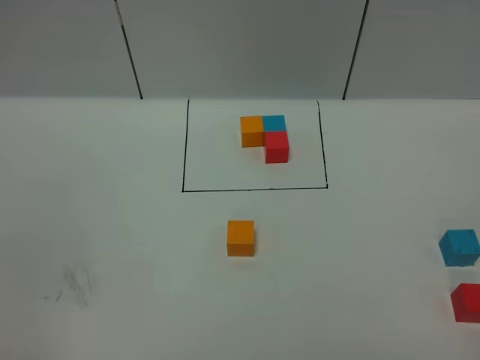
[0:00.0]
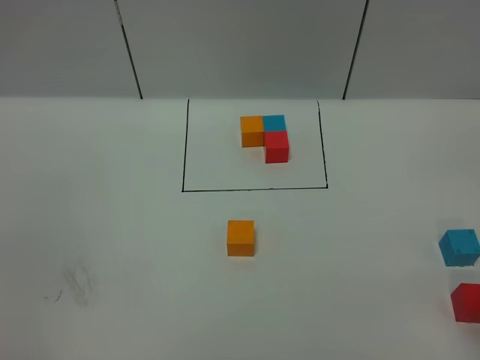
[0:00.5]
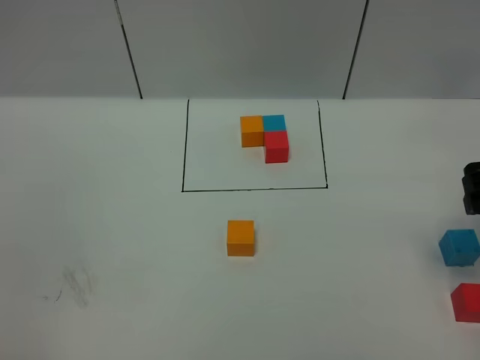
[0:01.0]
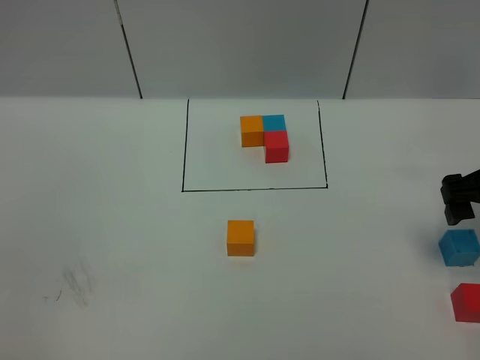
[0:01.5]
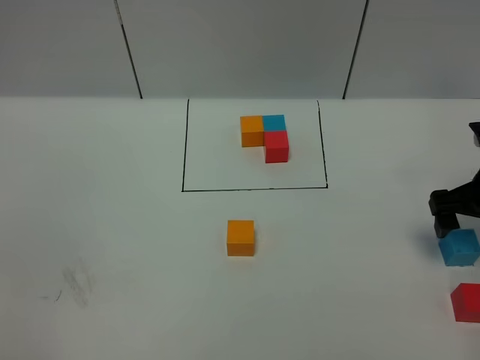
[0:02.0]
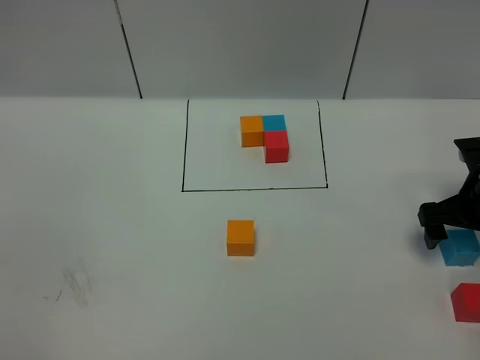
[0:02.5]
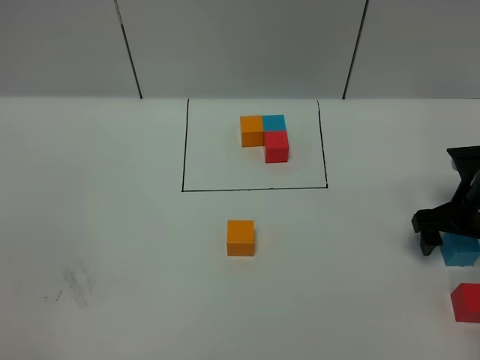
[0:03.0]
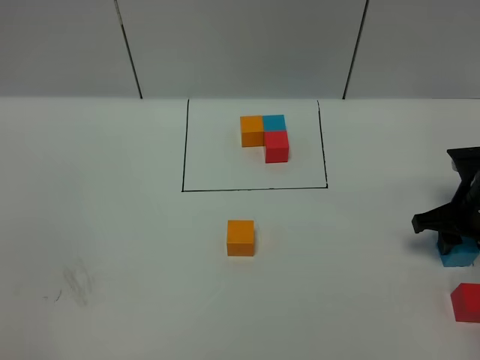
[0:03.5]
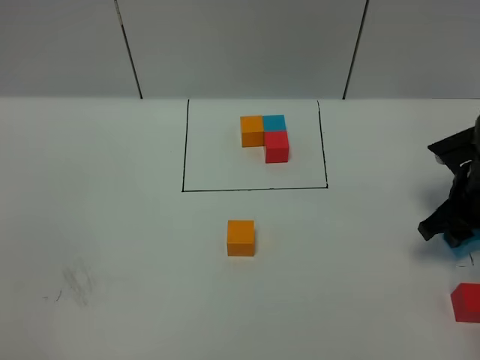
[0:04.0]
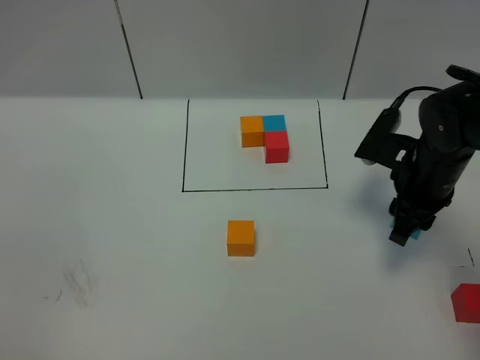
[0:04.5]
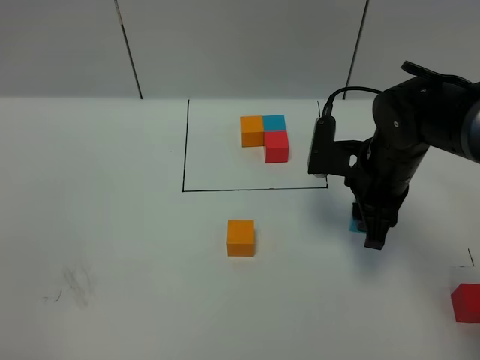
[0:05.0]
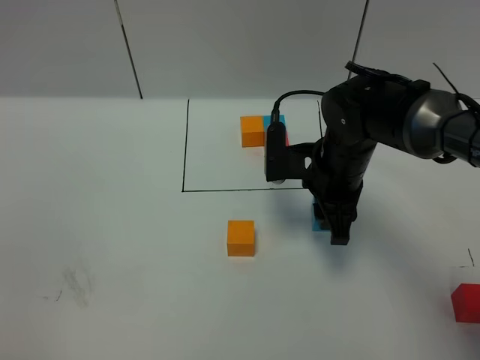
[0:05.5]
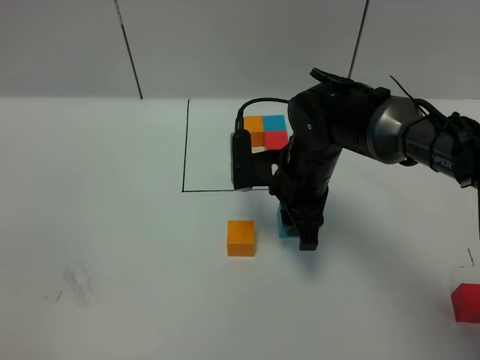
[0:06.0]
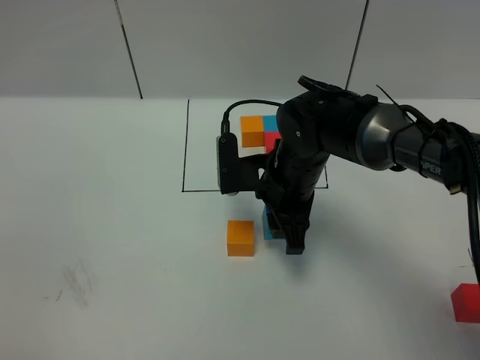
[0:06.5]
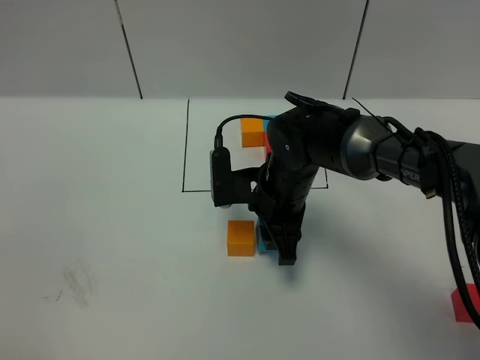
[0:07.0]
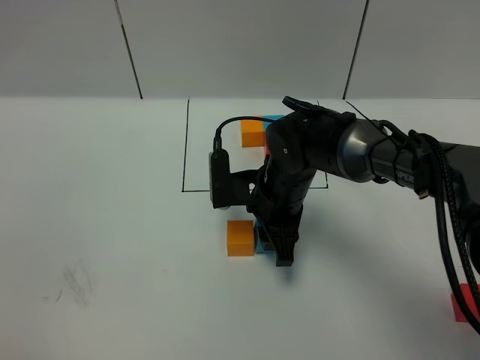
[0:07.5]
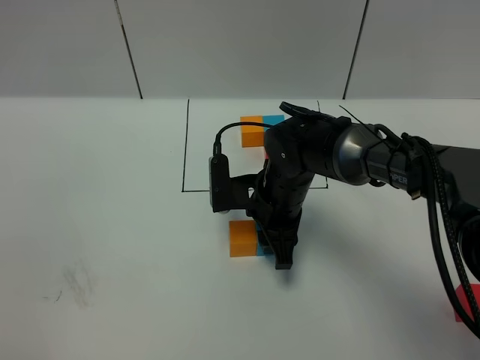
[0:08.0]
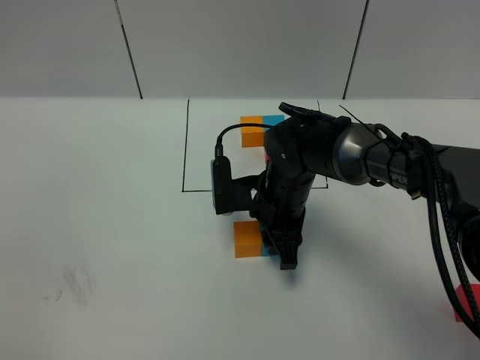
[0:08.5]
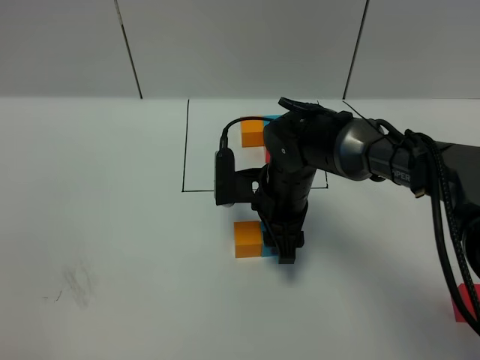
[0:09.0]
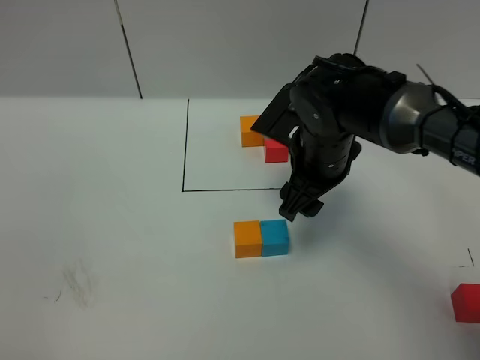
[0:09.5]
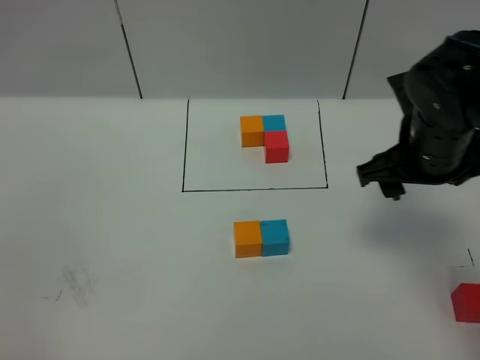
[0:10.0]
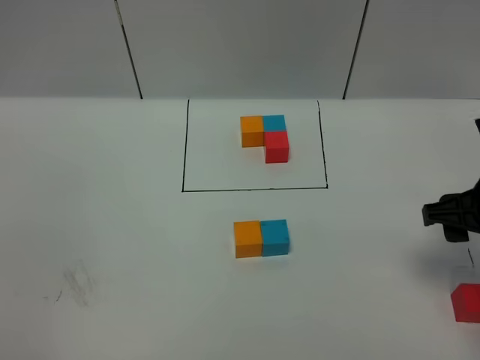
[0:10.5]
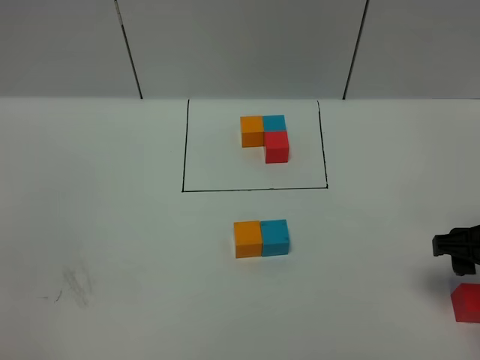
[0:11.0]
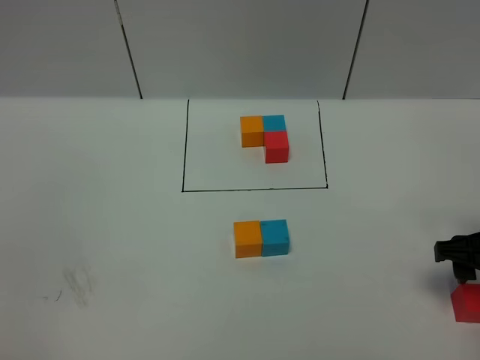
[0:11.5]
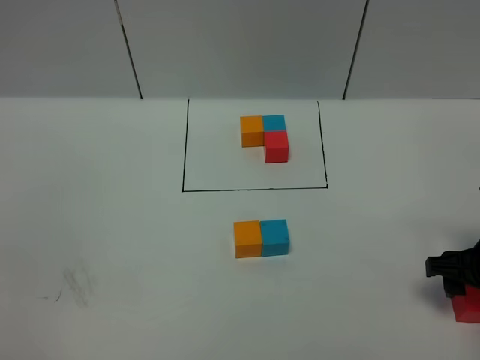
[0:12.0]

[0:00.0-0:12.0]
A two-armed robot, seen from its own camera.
Task of the whole recording: According to the building block template in front, assemble the scattered blocks together.
Step, 0:00.0 to 0:08.5: Put the blue cube on the right of the orange cube.
0:00.0 to 0:02.0: The right gripper shifts roughly 30 cm forward.
0:02.0 to 0:04.0: The right gripper closes up.
0:04.0 to 0:06.0: The right gripper heads to the left, covering some 20 cm.
0:06.0 to 0:08.0: The right gripper moves roughly 5 cm.
0:08.0 to 0:10.0: The right gripper shifts roughly 20 cm to the right and upward, and opens.
0:10.0 to 0:12.0: The right gripper shifts some 15 cm downward, to the right and backward.

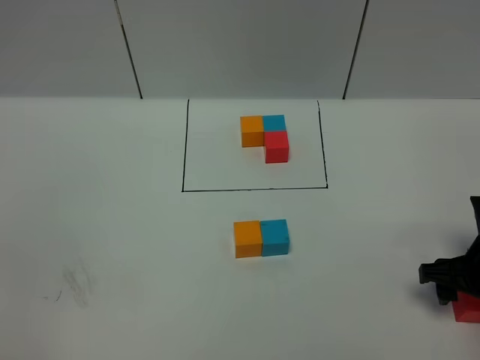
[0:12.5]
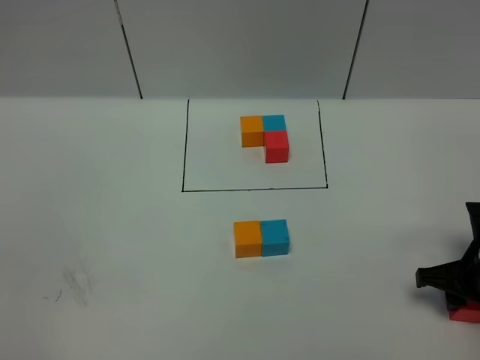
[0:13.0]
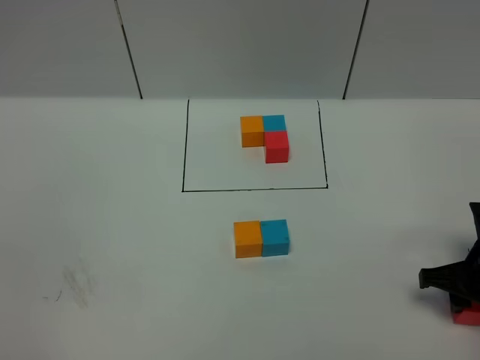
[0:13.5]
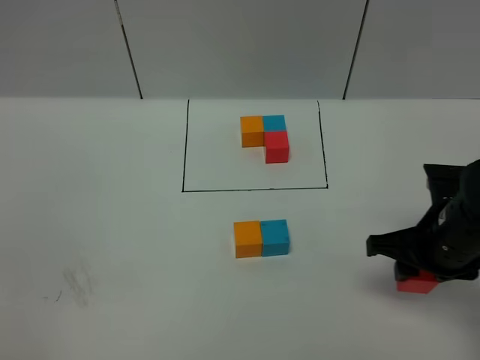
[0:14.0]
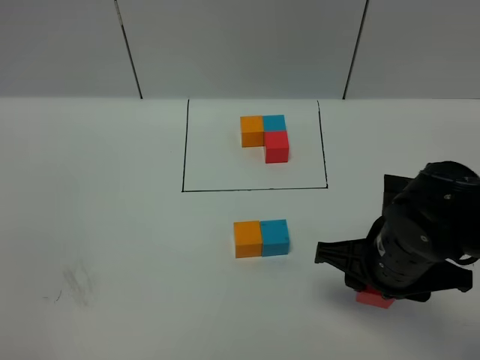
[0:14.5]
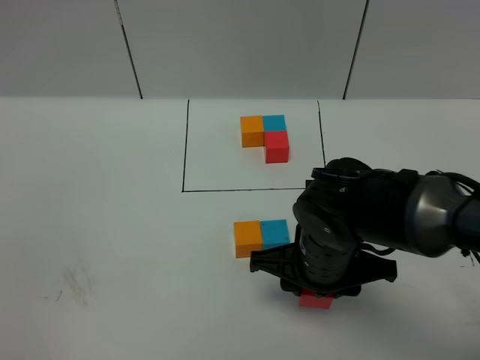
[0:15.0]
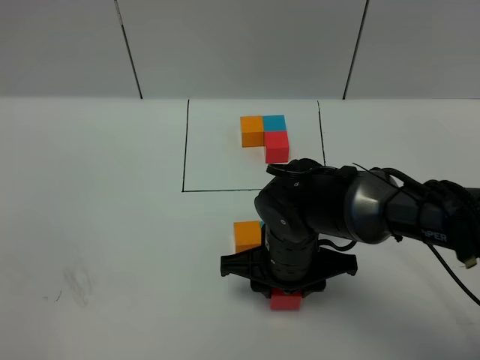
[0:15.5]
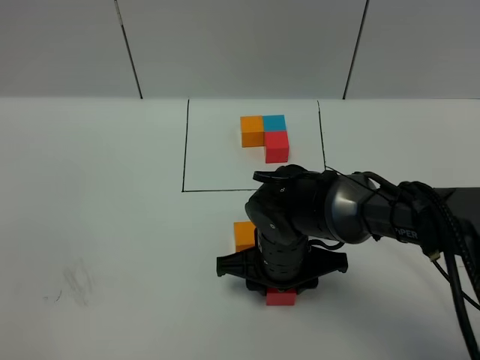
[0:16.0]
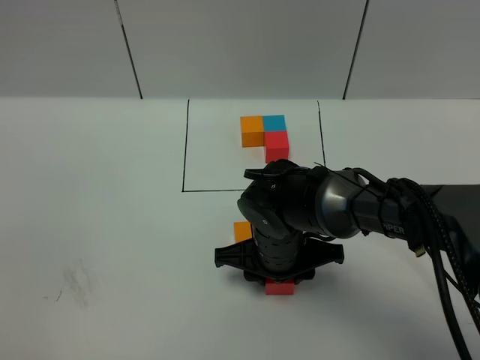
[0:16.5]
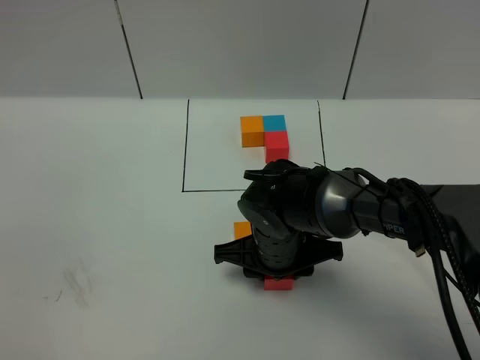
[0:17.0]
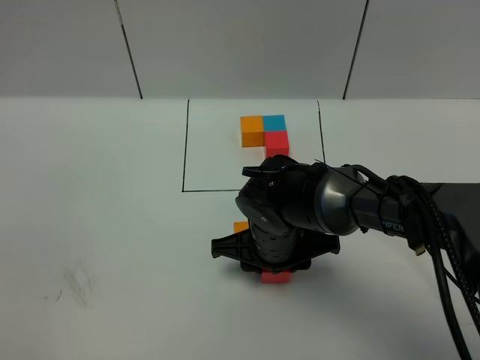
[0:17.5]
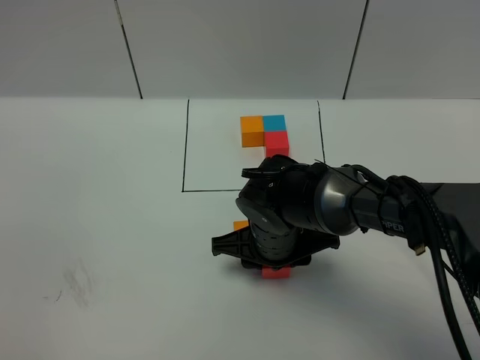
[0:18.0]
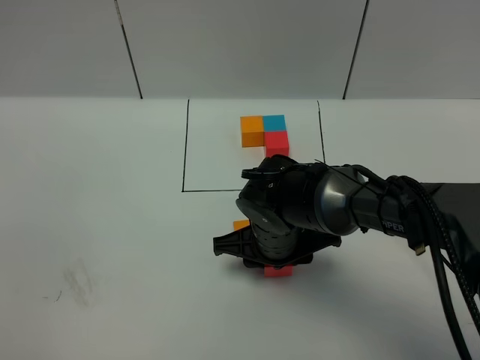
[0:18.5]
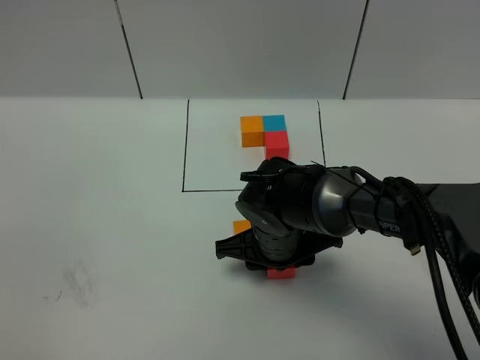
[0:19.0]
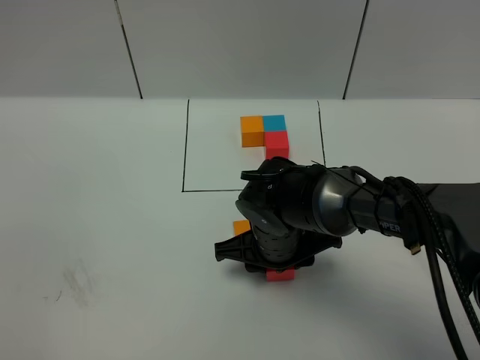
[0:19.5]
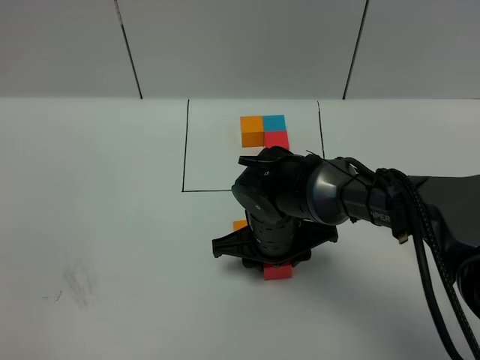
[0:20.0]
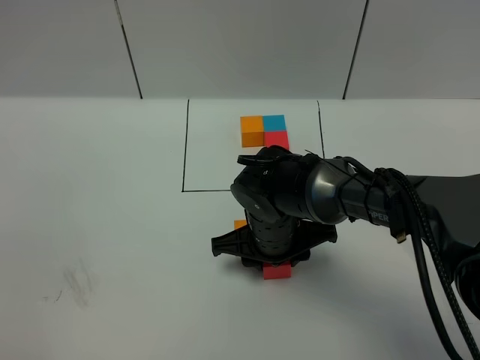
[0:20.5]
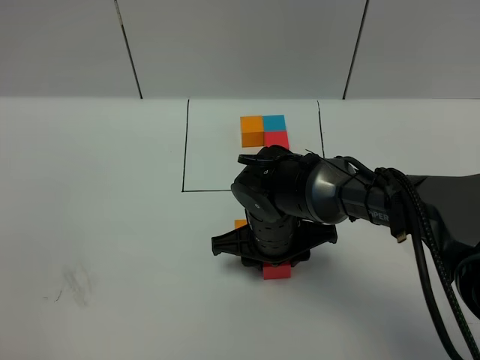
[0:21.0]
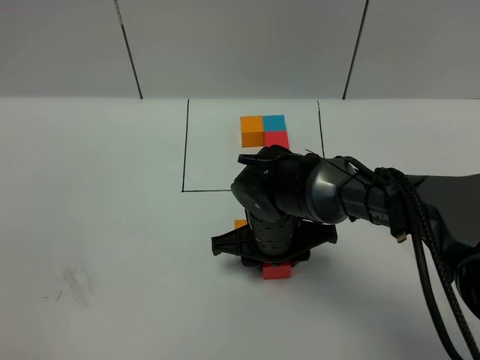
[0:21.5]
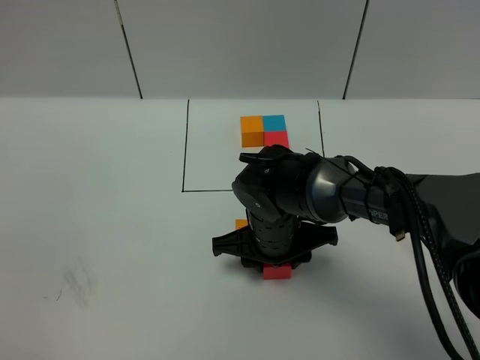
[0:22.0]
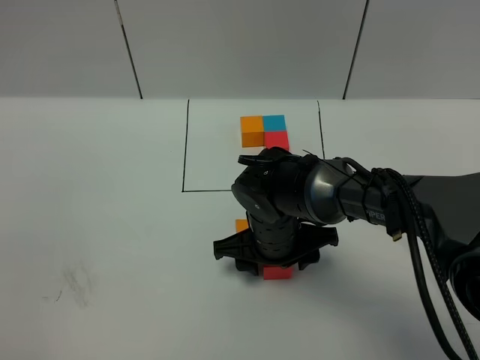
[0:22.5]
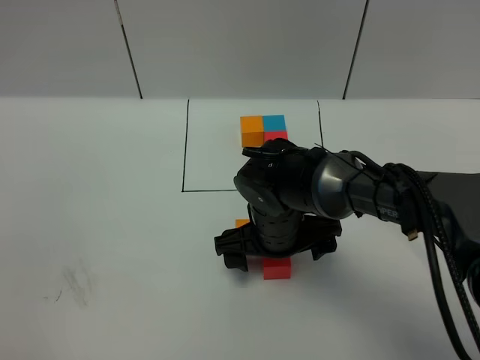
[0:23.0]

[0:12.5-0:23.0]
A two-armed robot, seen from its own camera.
Task of the whole recording: According to the building block template in front, assemble the scattered blocks together.
Step, 0:12.5 to 0:22.5: Put the red cube in the front of the blue cube.
0:12.5 to 0:14.5: The right gripper heads to the left and upward, covering about 15 cm, and closes up.
0:14.5 to 0:16.5: The right gripper is displaced to the left, downward and forward by some 15 cm.
0:16.5 to 0:19.0: There are only small adjustments of the grippers.
0:19.0 to 0:21.0: The two grippers keep their place.
0:21.0 to 0:23.0: The right gripper opens its fingers.

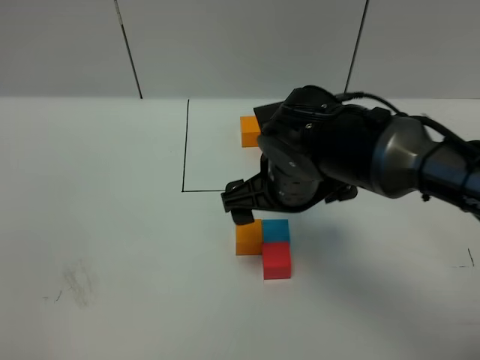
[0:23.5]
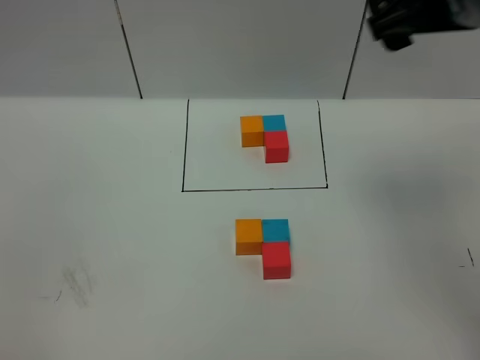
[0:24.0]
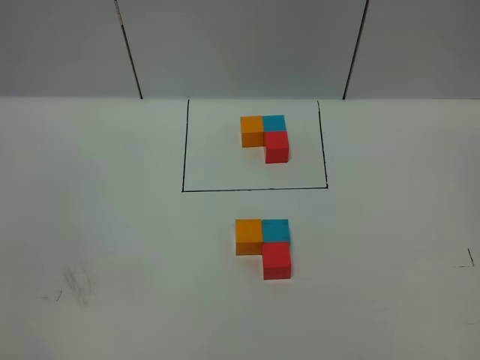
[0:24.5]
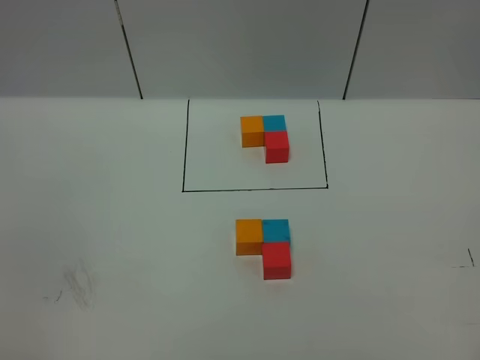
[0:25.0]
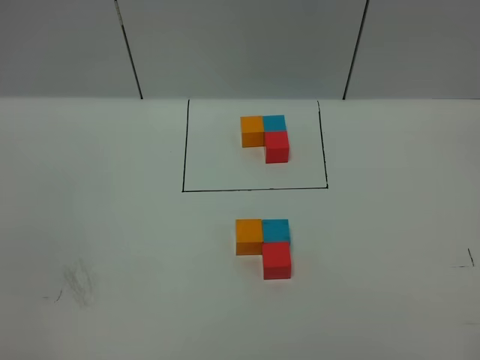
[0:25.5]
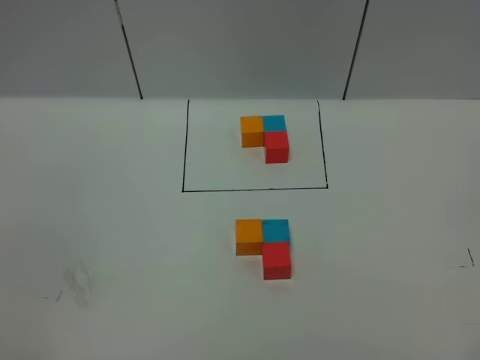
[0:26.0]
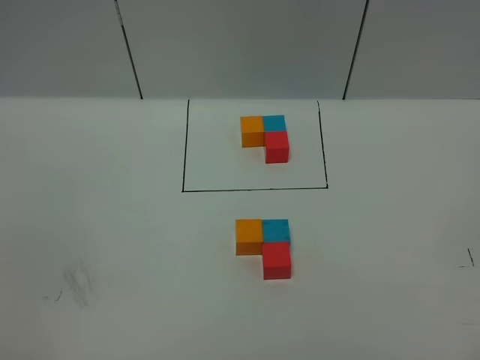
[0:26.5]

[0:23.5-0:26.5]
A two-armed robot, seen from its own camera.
Task of the whole recording: According to the building block template in front, assemble the scattered blocks together.
0:23.5 to 0:25.0: The right gripper shifts some 40 cm to the right, upward and backward.
